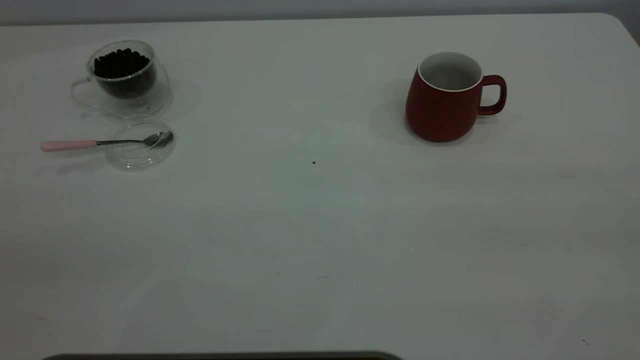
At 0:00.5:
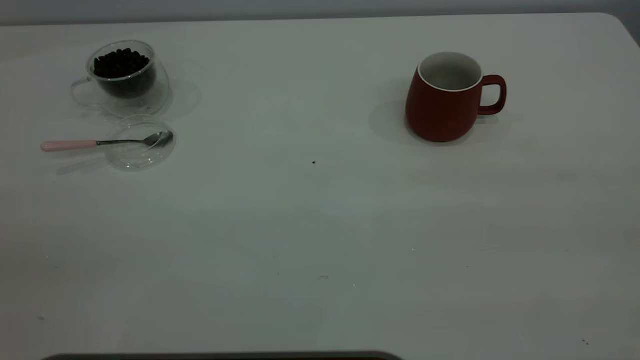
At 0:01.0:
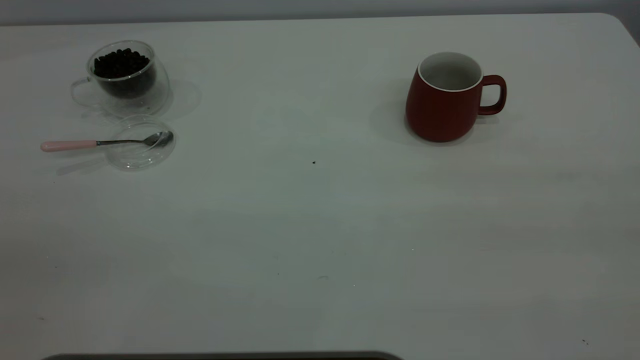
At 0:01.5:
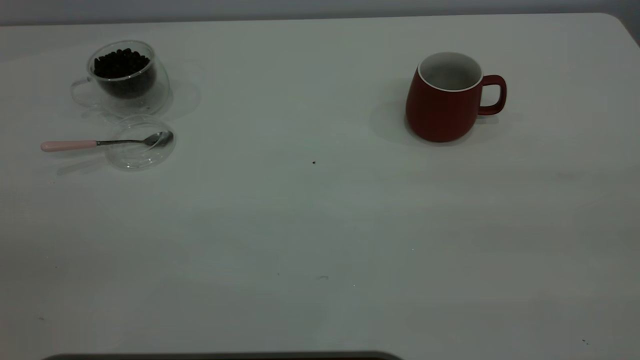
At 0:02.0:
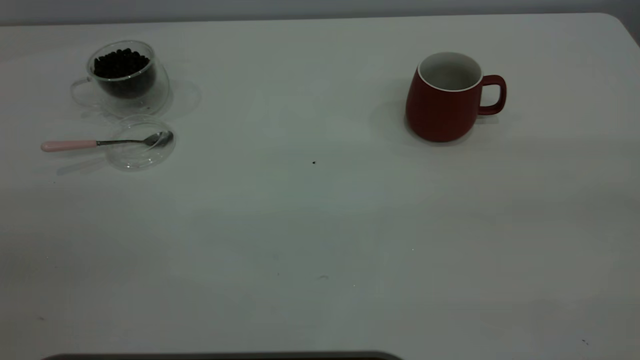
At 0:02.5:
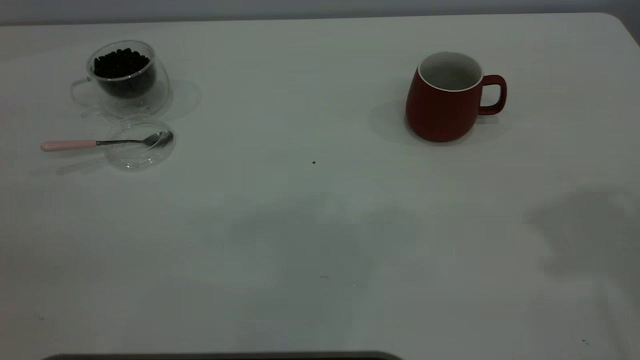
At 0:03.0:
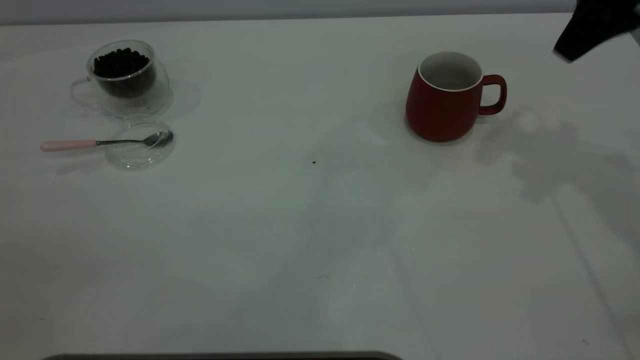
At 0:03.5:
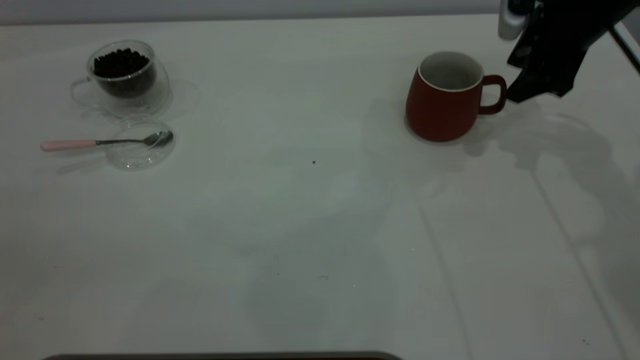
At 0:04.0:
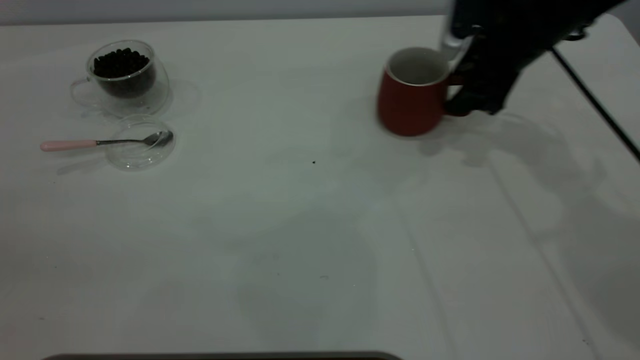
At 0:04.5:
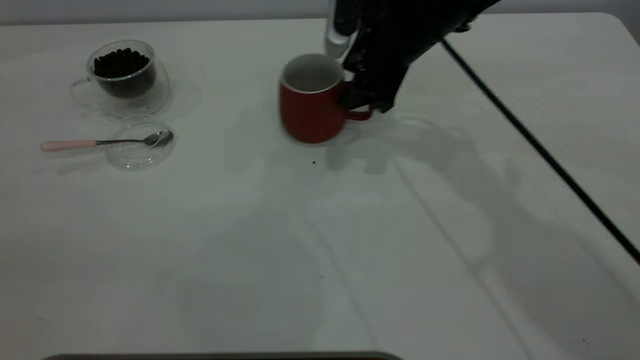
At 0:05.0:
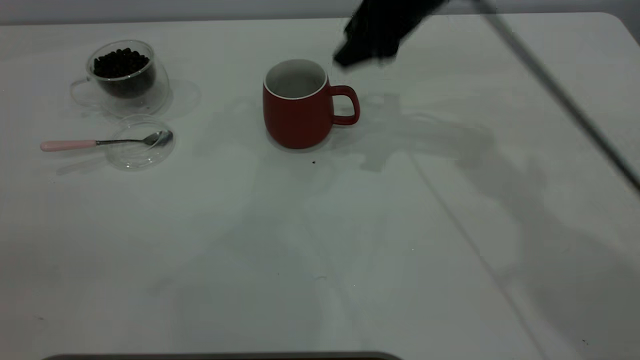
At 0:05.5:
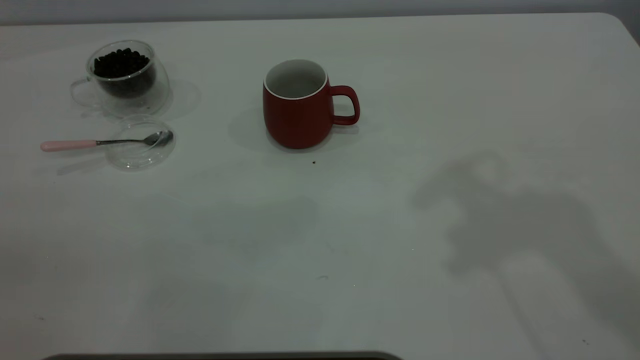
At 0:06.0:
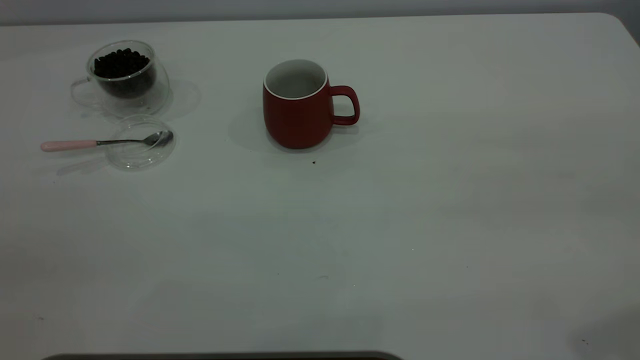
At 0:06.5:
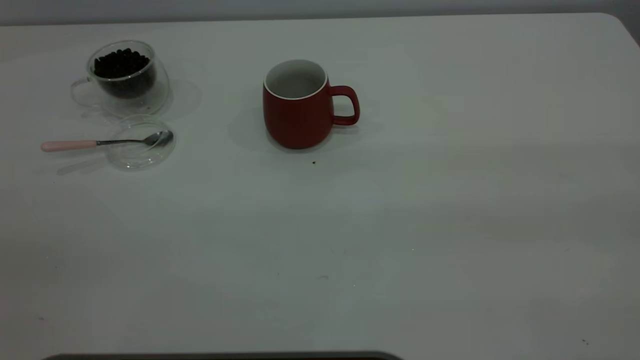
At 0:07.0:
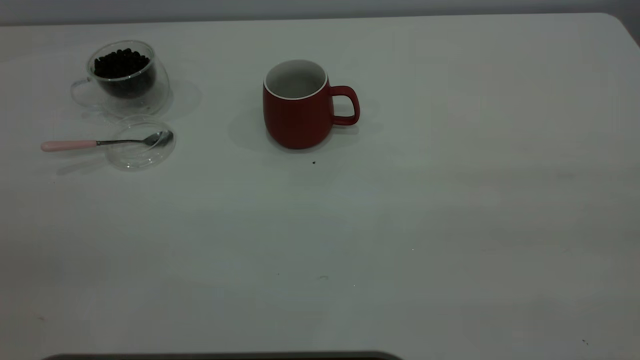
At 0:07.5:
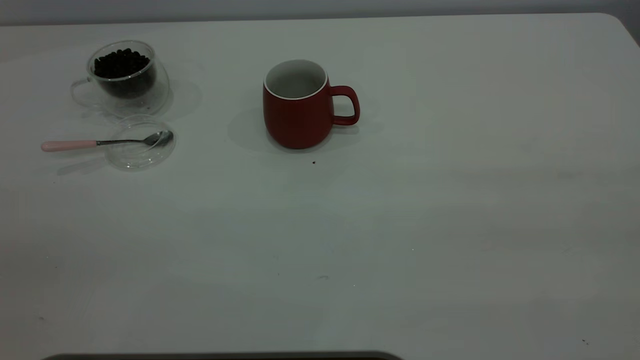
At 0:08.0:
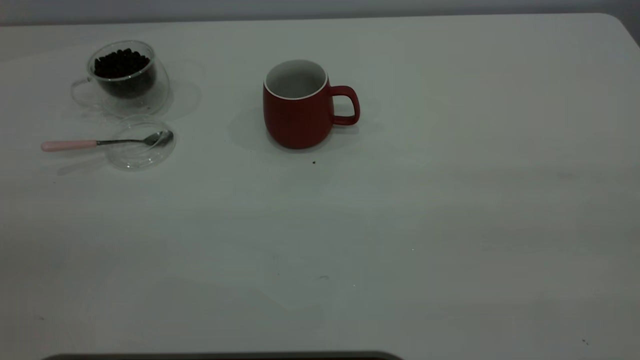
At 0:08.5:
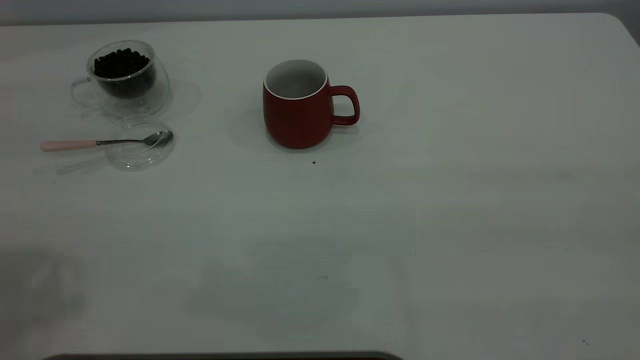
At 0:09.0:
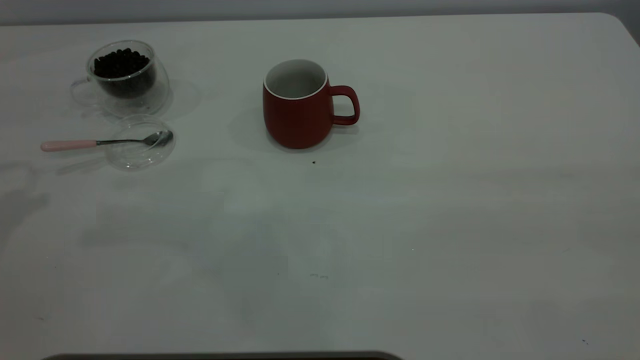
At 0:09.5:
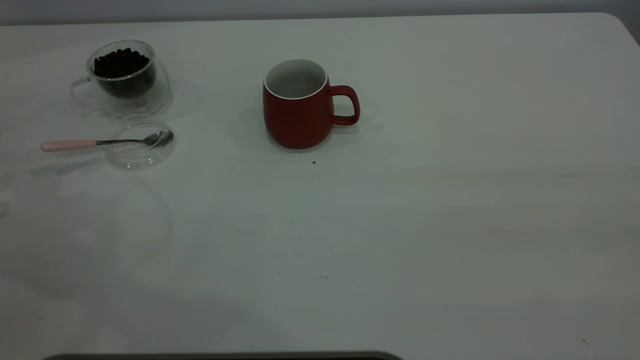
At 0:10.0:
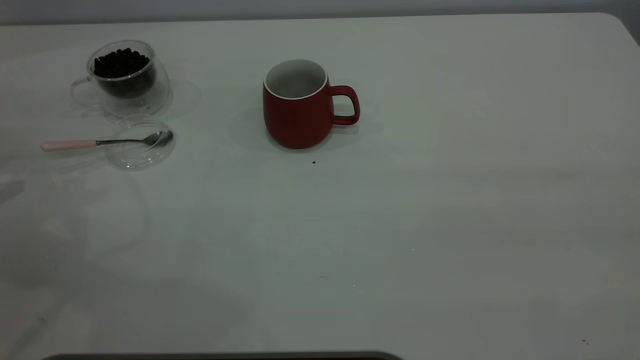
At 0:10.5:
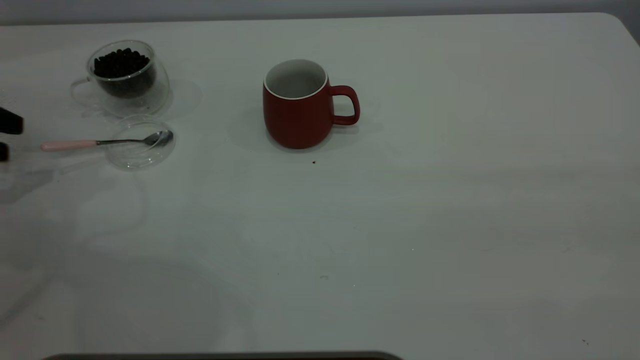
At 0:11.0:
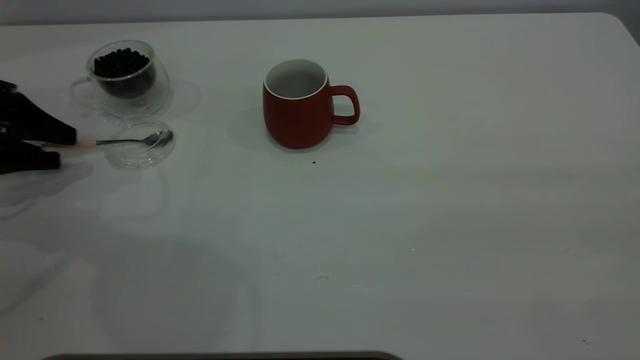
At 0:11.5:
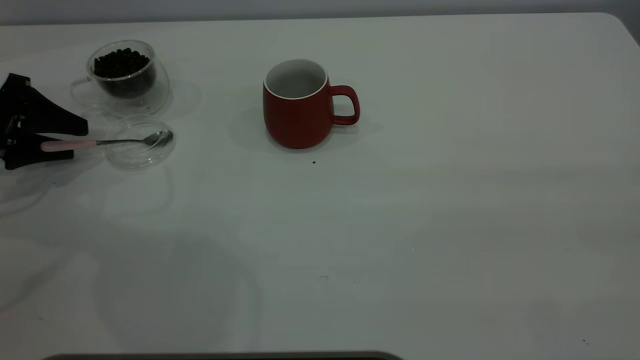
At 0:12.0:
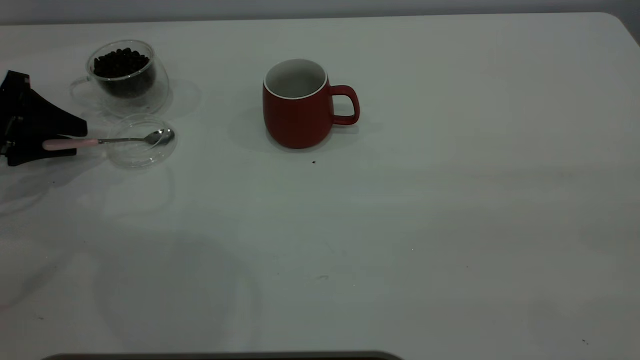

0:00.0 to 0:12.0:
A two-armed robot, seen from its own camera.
Task of the whole recording: the right gripper place the red cup in the center of the table, the left gripper take the pink spoon from the cup lid and scoop out the coffee beans from the coffee cup and put them into the red cup, the left gripper put the spoon back into the cup lid.
Step, 0:00.0 to 0:04.5: Move the cup to the center of view.
0:02.0 to 0:04.0: The right gripper is displaced forward and downward by approximately 50 cm.
0:04.0 to 0:06.0: The right gripper heads backward and upward, covering some 40 cm, and closes.
0:10.0 to 0:12.0: The left gripper travels to the right and downward by about 10 cm.

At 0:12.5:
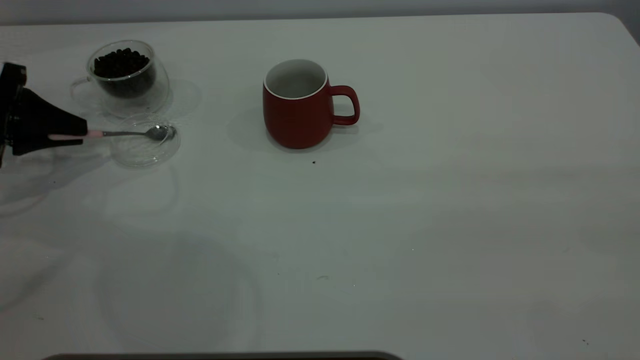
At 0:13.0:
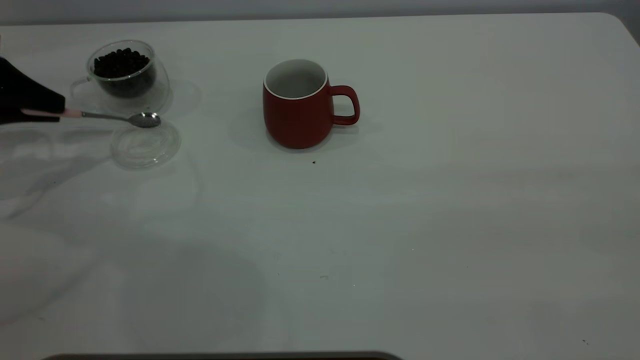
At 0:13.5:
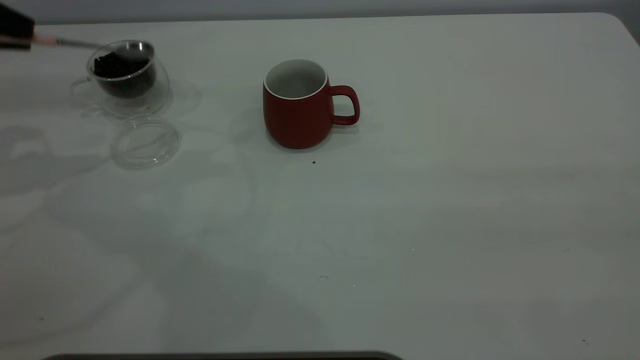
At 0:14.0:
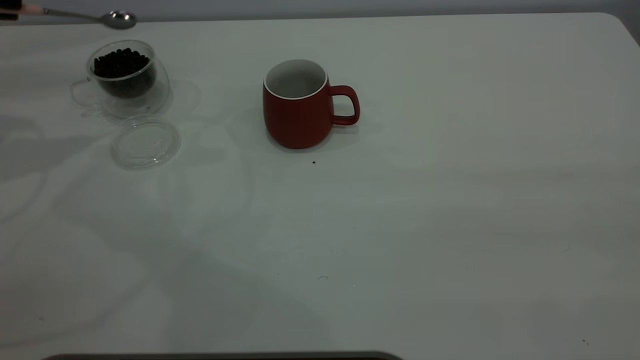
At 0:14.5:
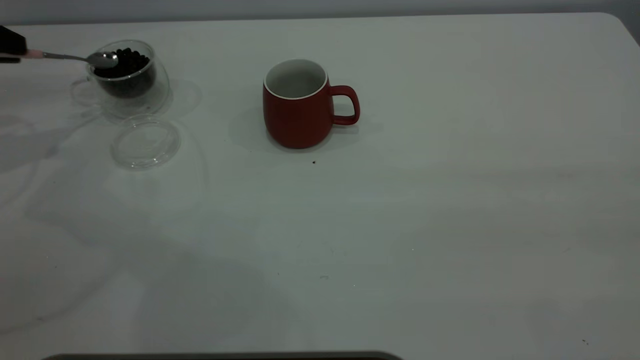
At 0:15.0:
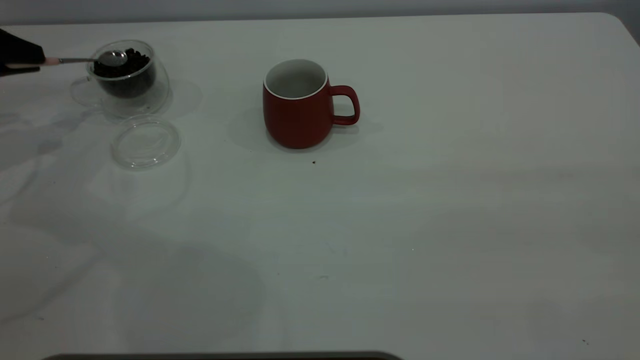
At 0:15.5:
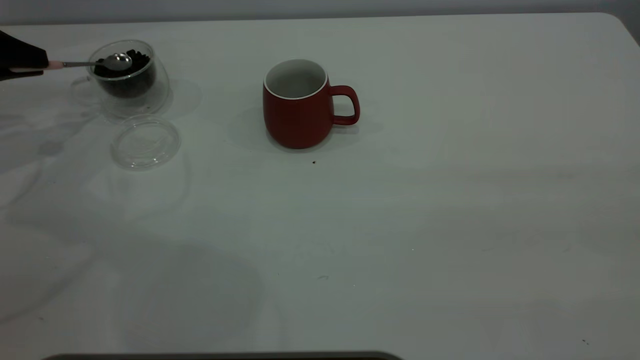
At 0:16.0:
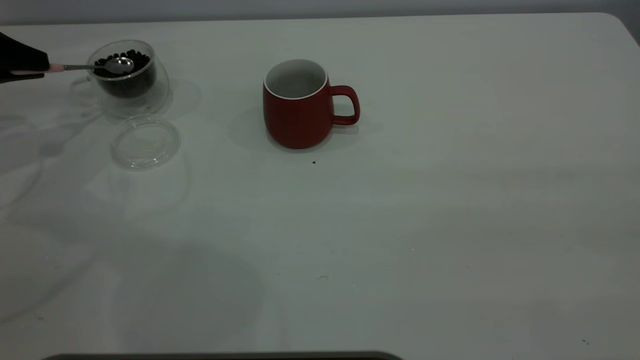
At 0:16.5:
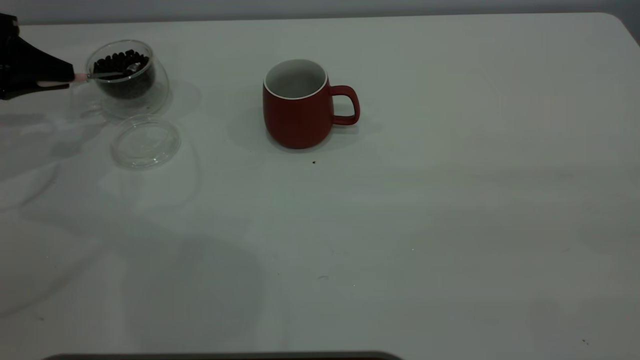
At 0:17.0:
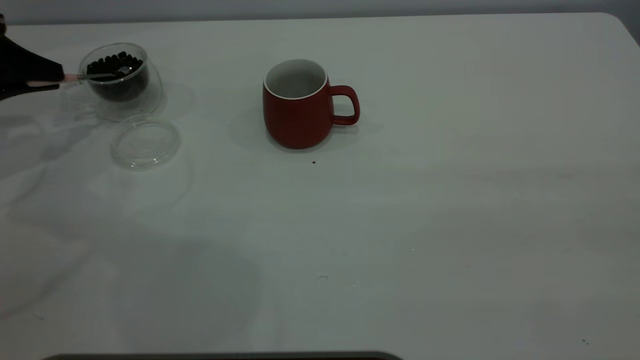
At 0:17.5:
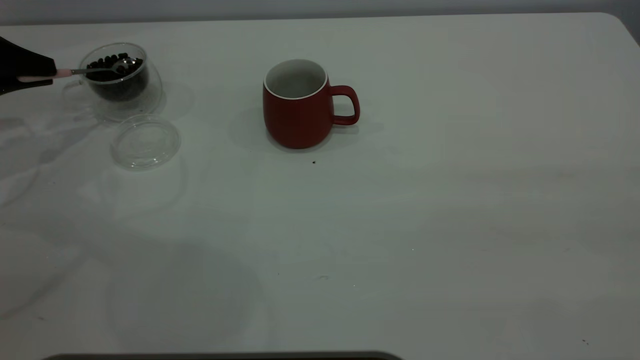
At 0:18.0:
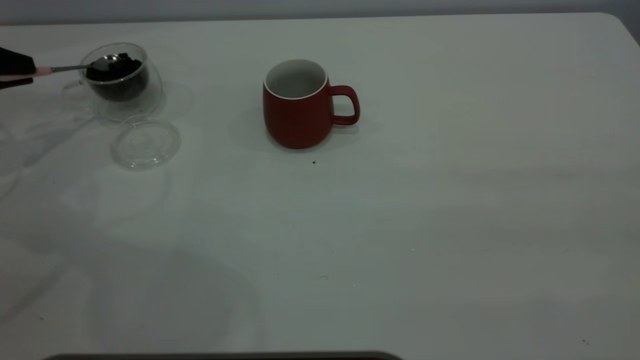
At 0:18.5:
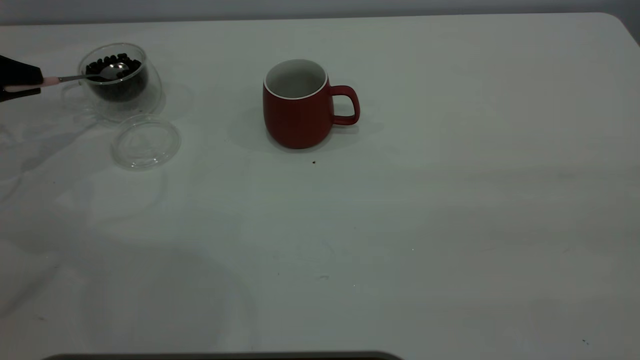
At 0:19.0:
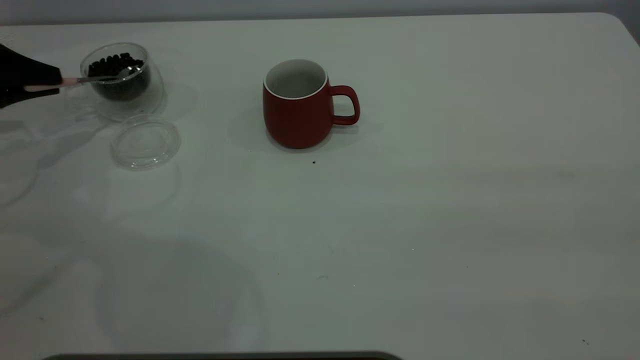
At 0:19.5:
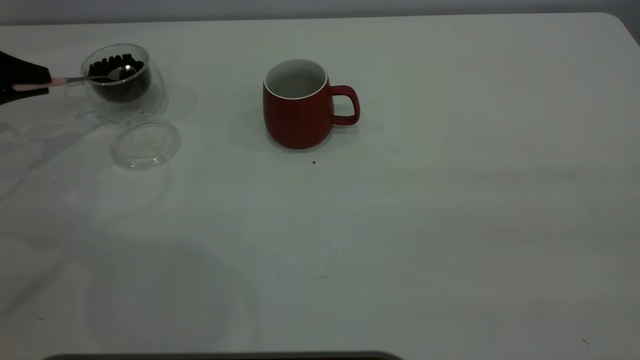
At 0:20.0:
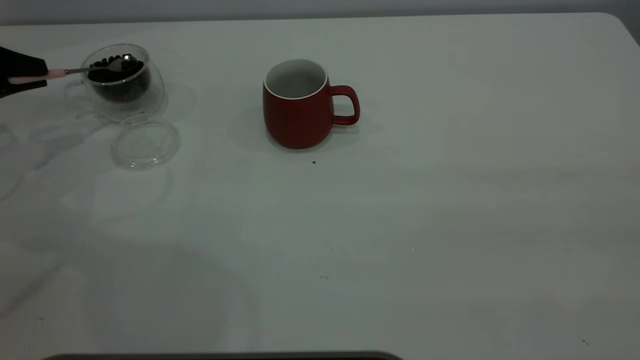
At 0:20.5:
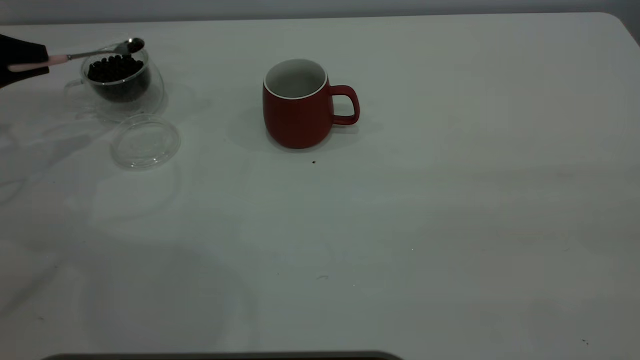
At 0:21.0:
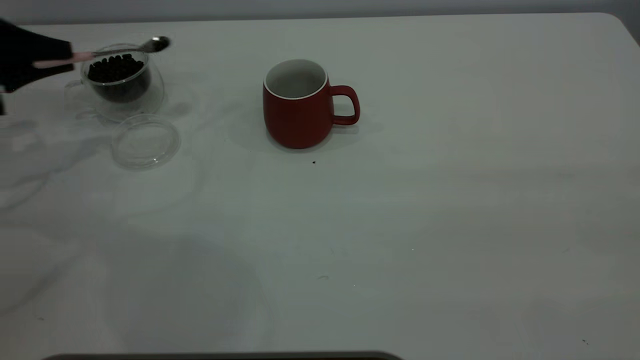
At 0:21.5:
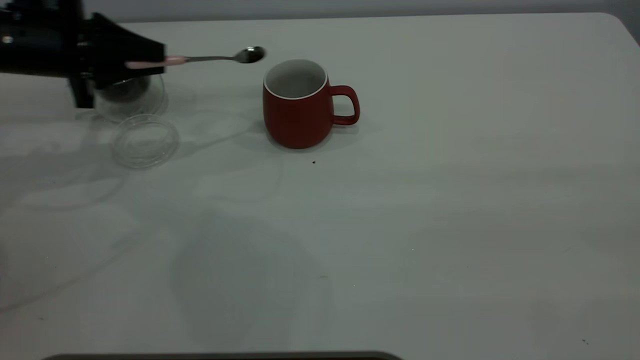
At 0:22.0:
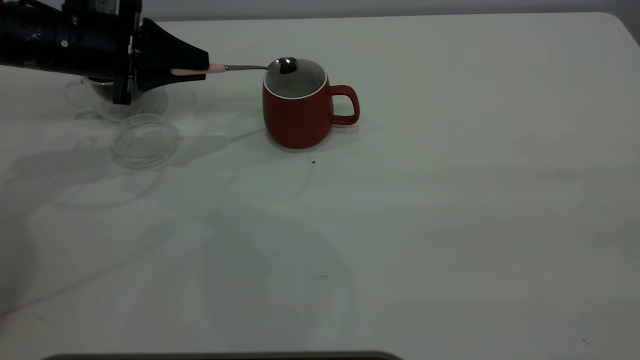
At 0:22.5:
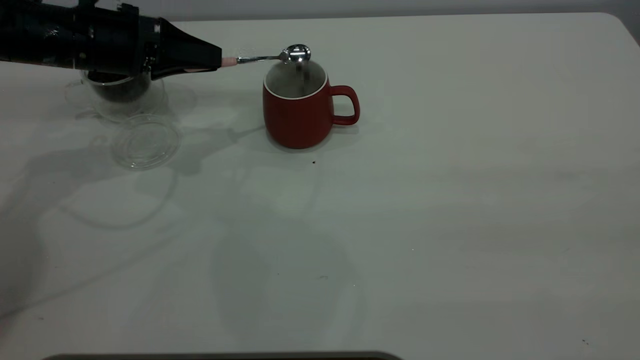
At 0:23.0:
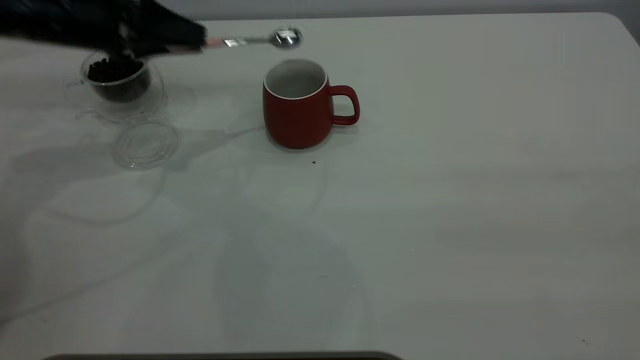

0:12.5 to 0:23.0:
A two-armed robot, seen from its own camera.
Task of the whole recording: the right gripper place the red cup in the center of the table, the left gripper take the pink spoon from the cup lid and scoop out the coffee beans from the coffee cup and put them into the red cup, the left gripper put the spoon back into the cup lid.
Step, 0:13.5 to 0:23.0: Scoop a spoonful of beans into the cup.
0:12.5 to 0:14.5: The left gripper heads upward, covering some 10 cm.
0:14.5 to 0:16.5: The left gripper changes place by approximately 5 cm.
0:16.5 to 0:19.0: The grippers stay close to where they were, moving slightly.
0:19.0 to 0:21.0: The grippers move only a little.
0:21.0 to 0:23.0: The left gripper goes approximately 15 cm to the right.
